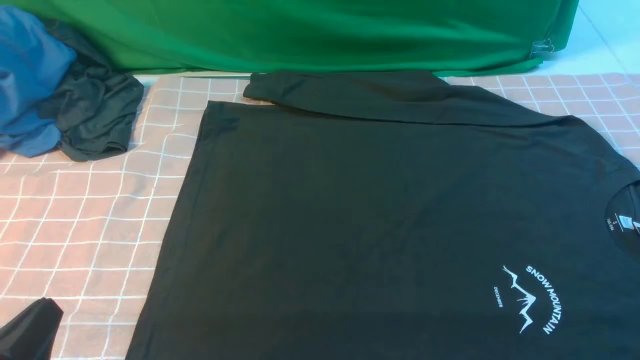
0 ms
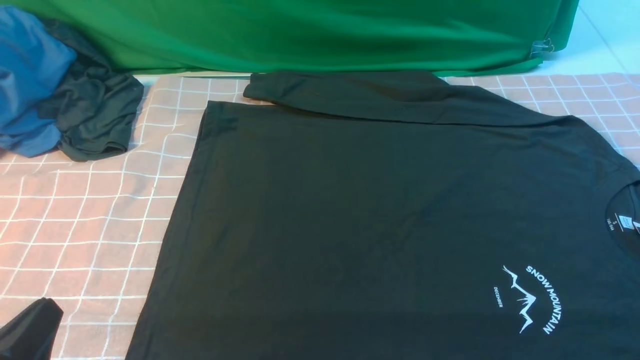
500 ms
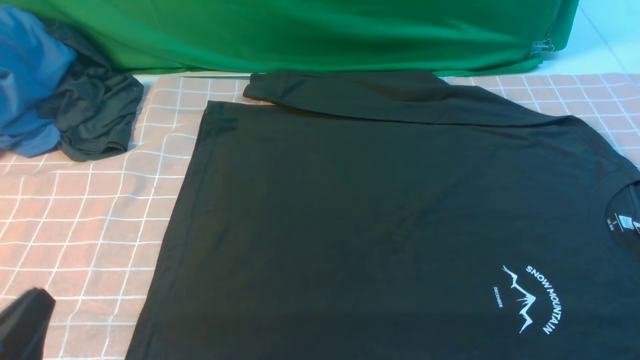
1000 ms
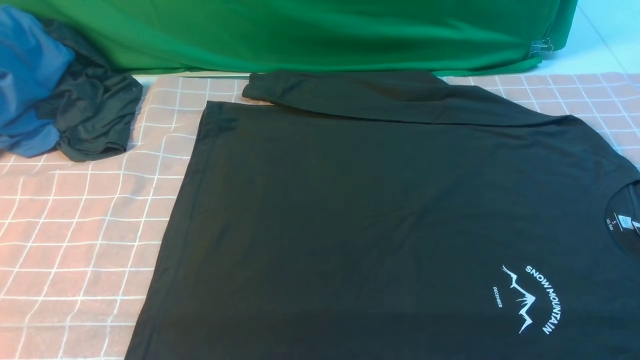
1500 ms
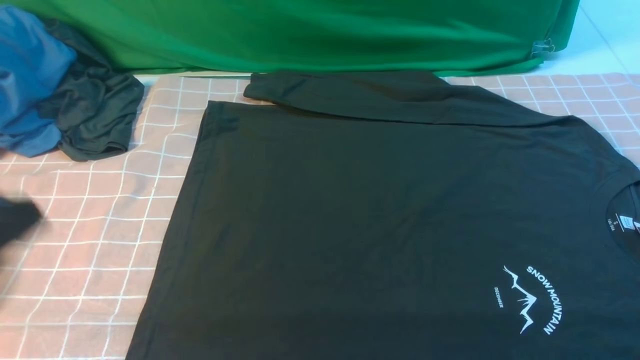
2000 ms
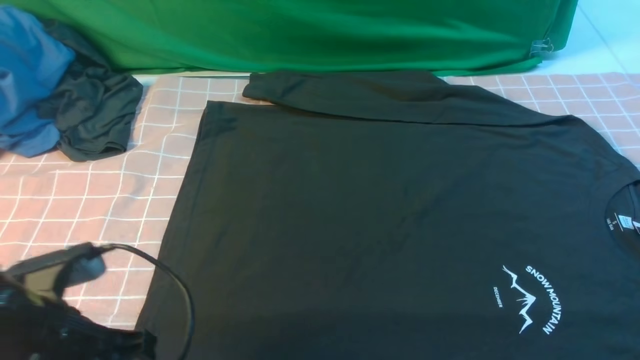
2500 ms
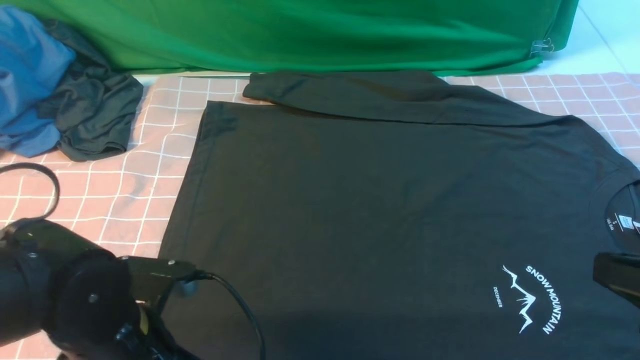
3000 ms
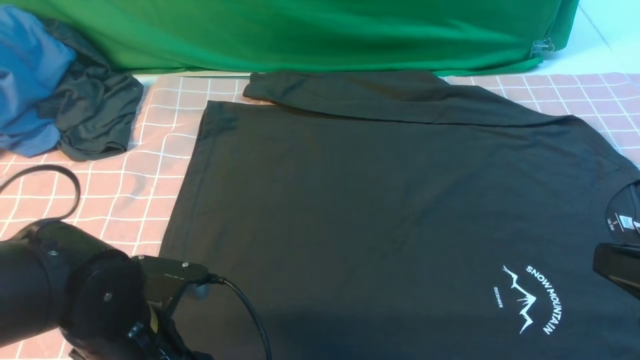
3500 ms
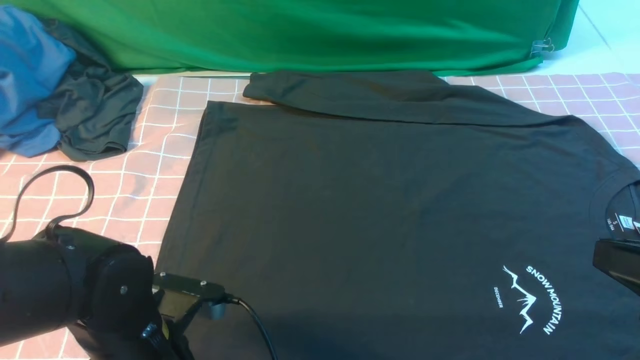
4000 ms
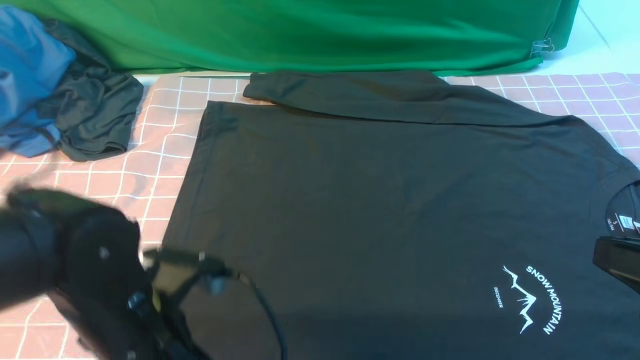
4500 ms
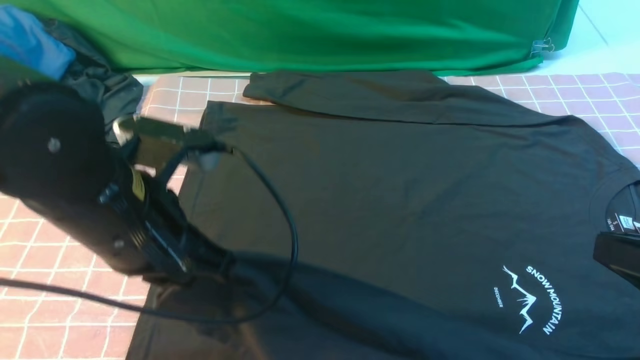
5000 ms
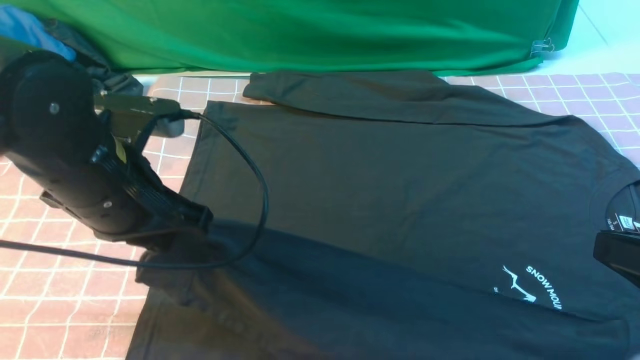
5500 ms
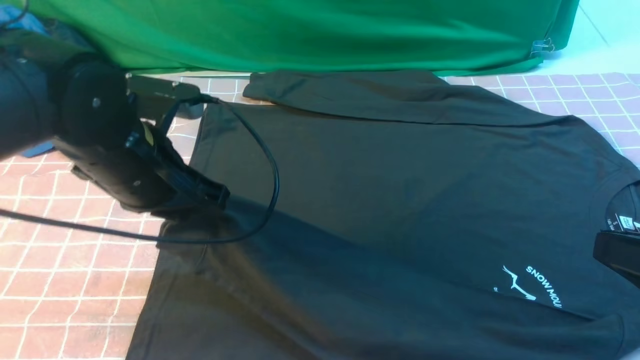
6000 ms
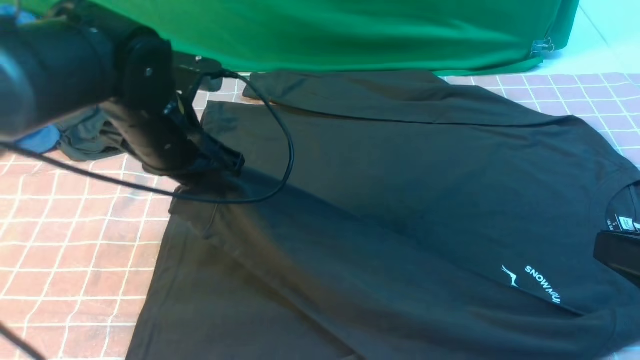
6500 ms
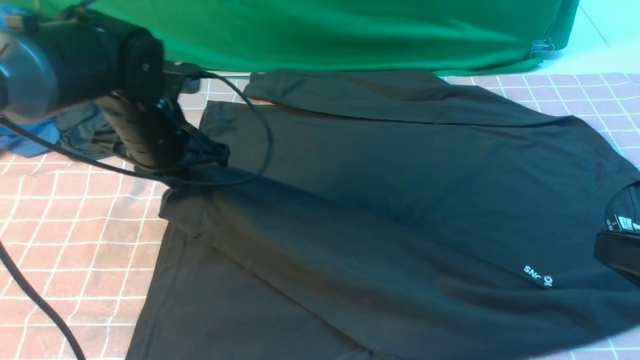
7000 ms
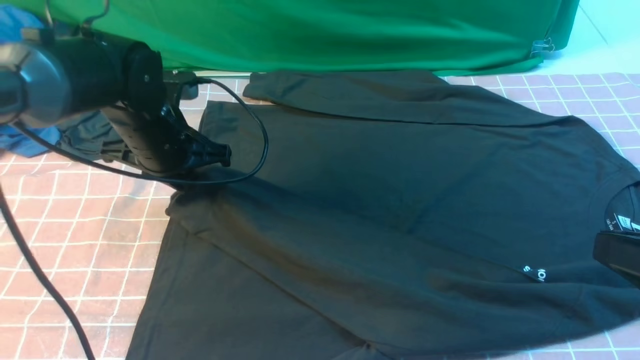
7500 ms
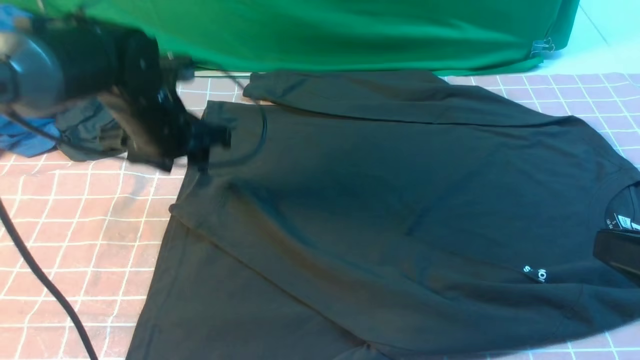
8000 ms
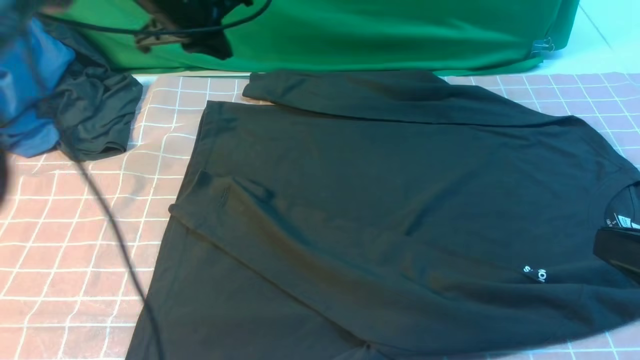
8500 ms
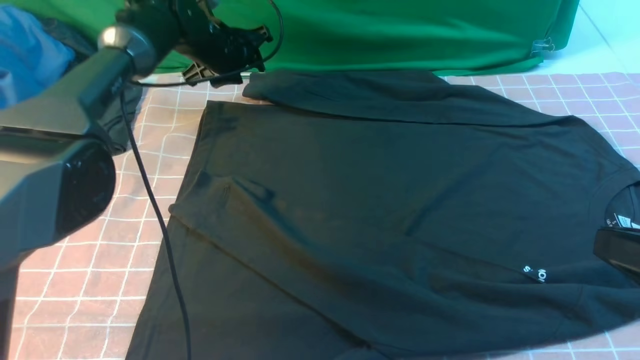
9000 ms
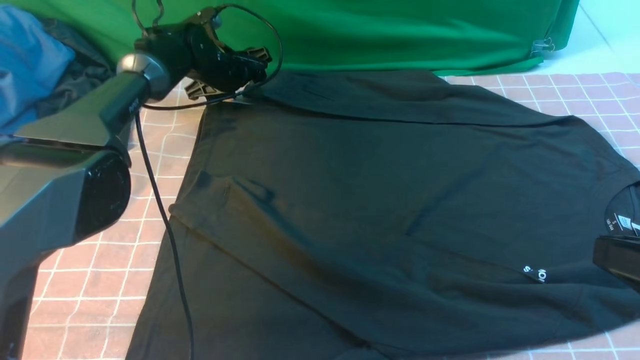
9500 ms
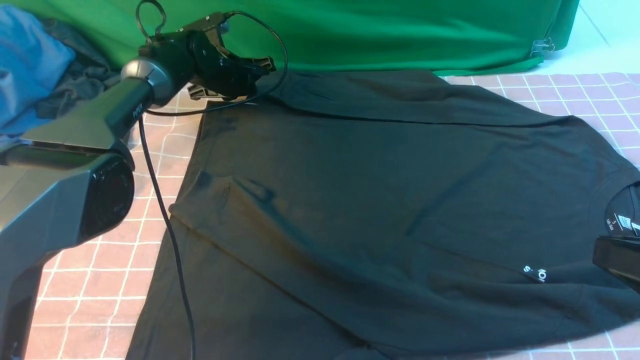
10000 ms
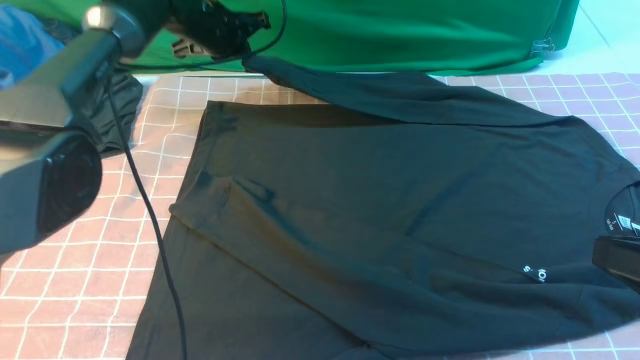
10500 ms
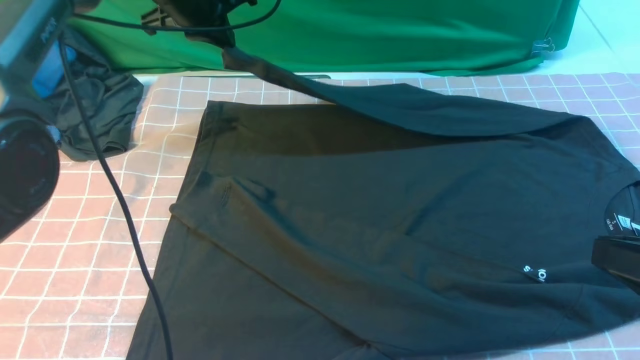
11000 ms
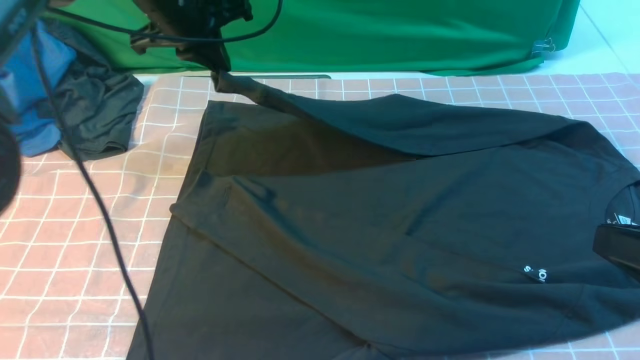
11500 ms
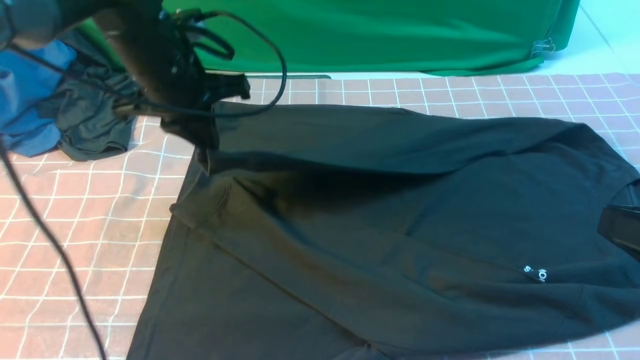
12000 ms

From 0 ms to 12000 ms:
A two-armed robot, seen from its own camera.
Step, from 0 ms to 4500 ms: use the left arm to clamp the cuff closest to it.
Step, from 5000 ms to 7500 ms: use the left arm to drag and place the cuff at the centered position on the left edge of the fabric.
Step, from 8000 ms to 10000 ms: use the left arm to clamp the cuff farthest from it.
From 0 ms to 2000 ms: The left gripper is displaced upward by some 15 cm.
From 2000 ms to 4000 ms: The right gripper heads upward, to the left and forward, covering approximately 10 cm; the left gripper is displaced downward and to the right by about 20 cm, and opens up.
From 4000 ms to 6000 ms: The left gripper heads forward and upward, covering about 15 cm, and closes its fingers.
From 6000 ms to 8000 ms: The left gripper heads forward, covering about 10 cm, and opens.
From 8000 ms to 10000 ms: The left gripper travels forward and downward by roughly 20 cm, and opens and closes again.
From 10000 ms to 12000 ms: The left gripper shifts about 25 cm backward and upward.

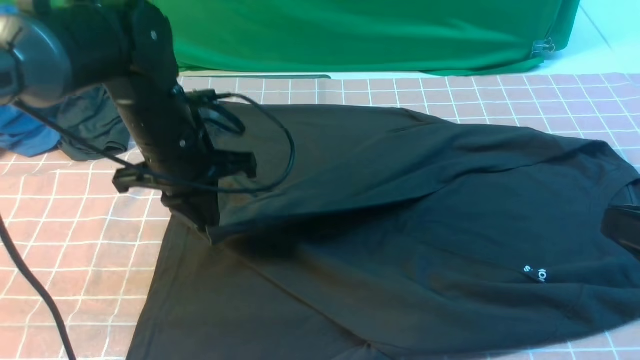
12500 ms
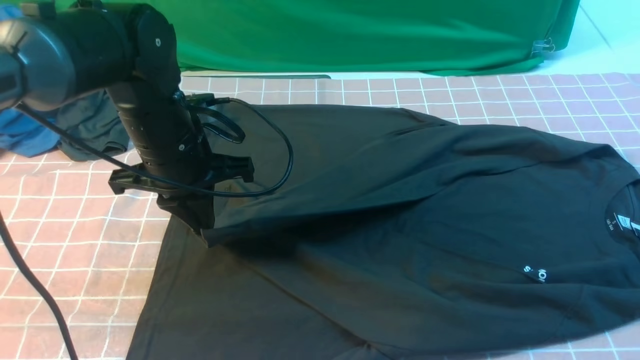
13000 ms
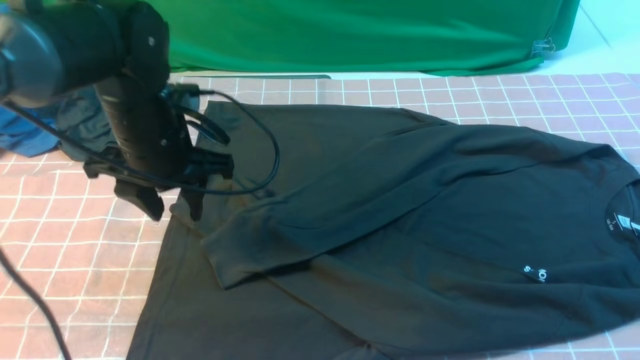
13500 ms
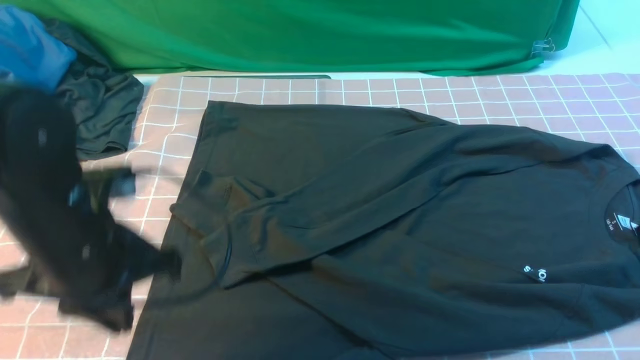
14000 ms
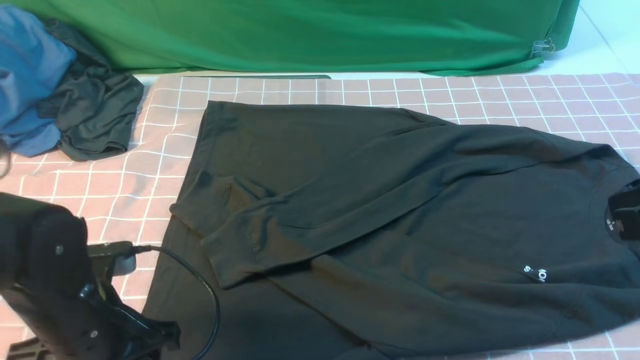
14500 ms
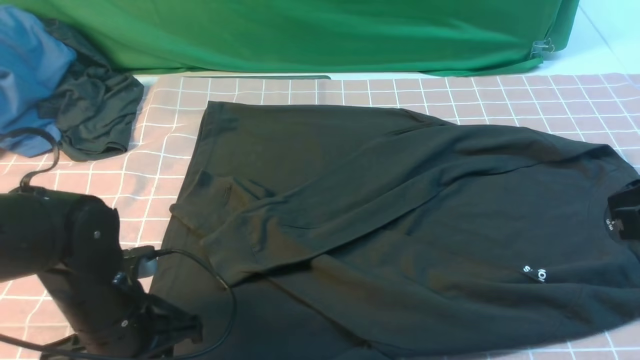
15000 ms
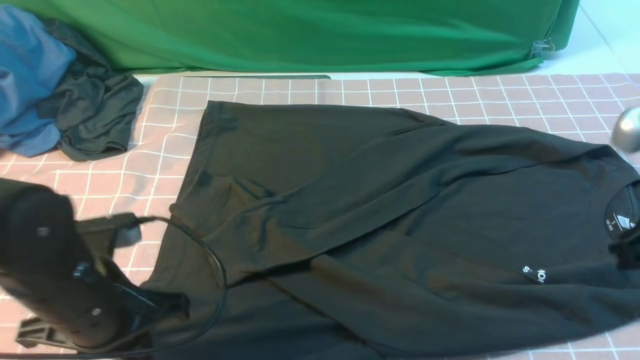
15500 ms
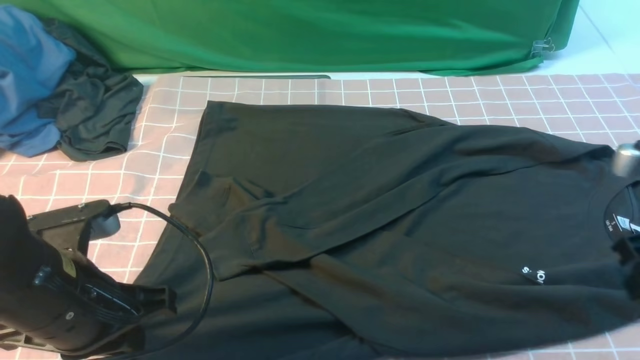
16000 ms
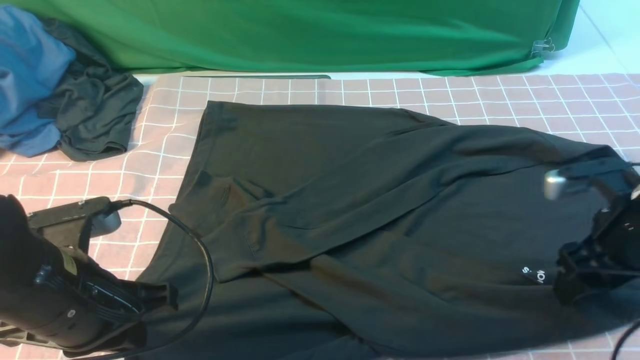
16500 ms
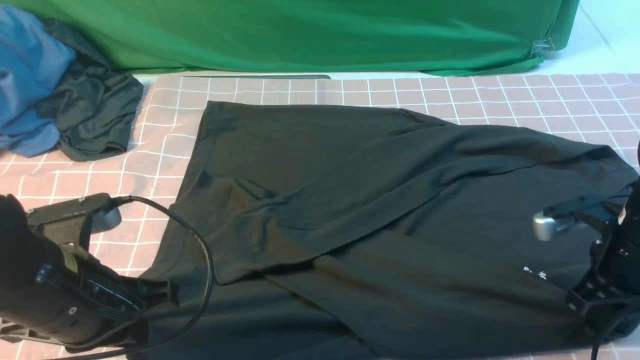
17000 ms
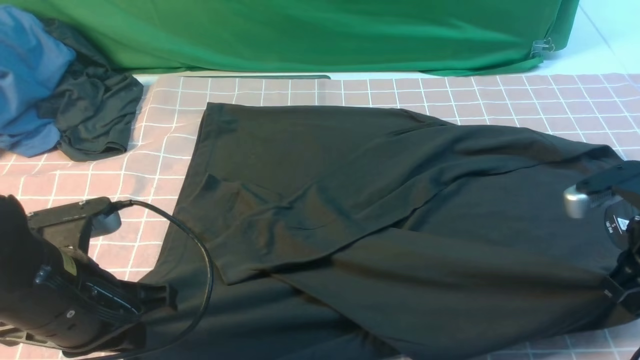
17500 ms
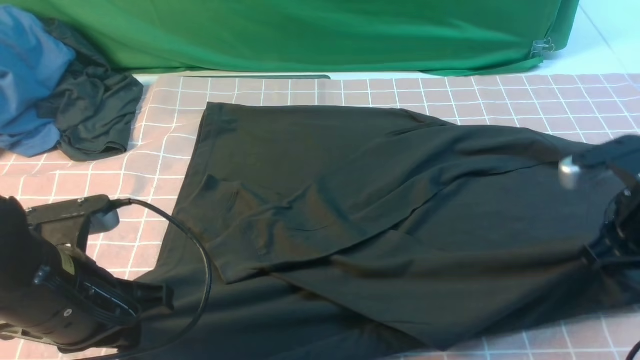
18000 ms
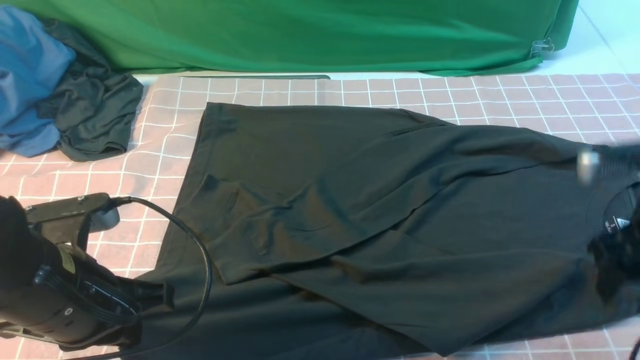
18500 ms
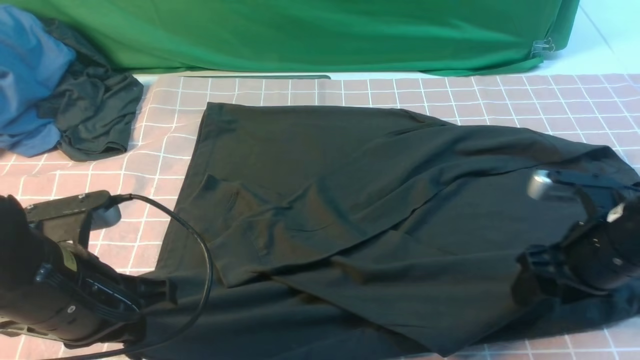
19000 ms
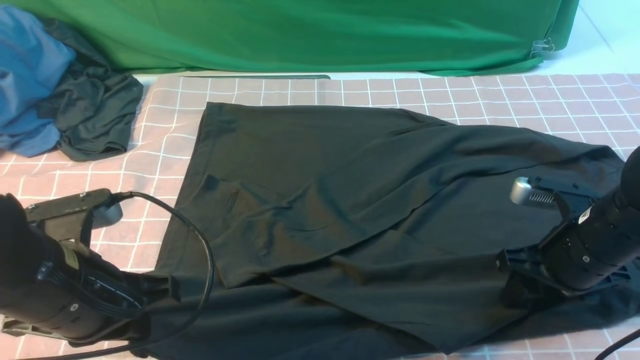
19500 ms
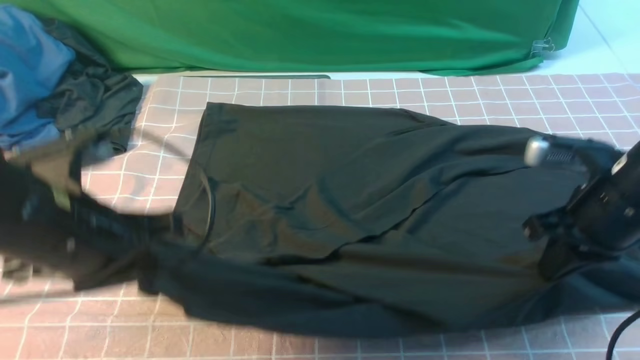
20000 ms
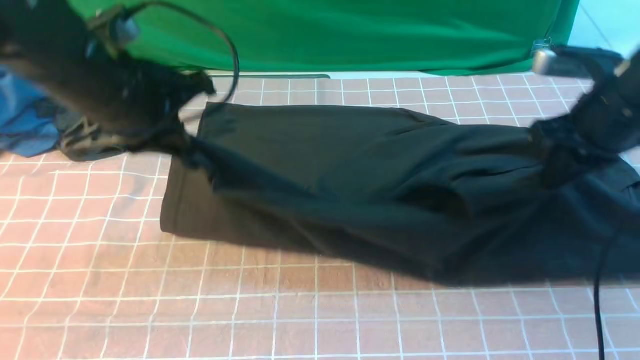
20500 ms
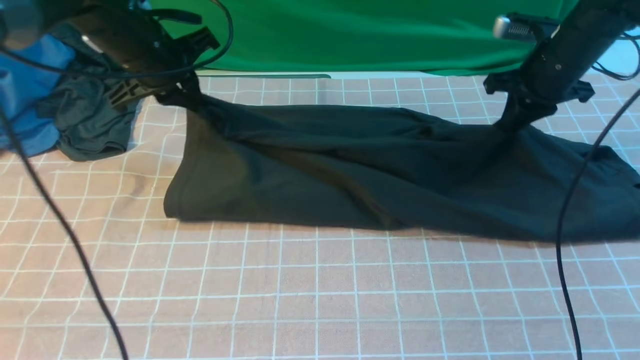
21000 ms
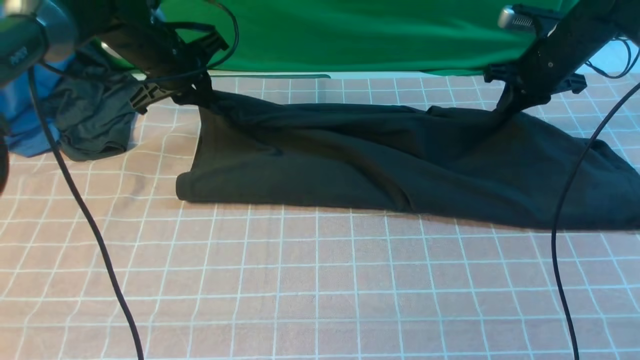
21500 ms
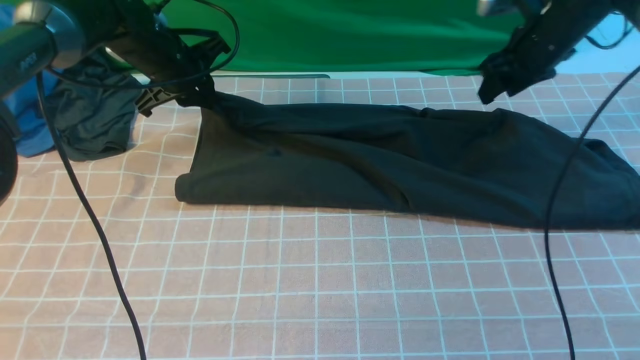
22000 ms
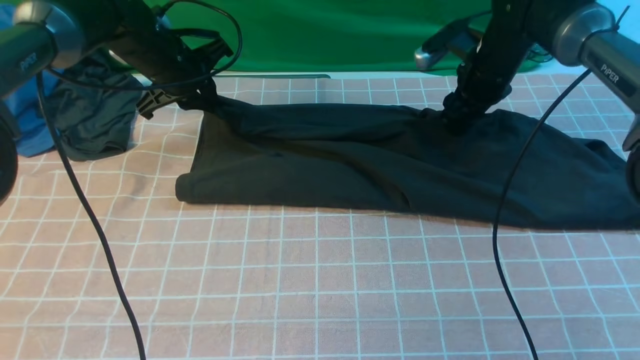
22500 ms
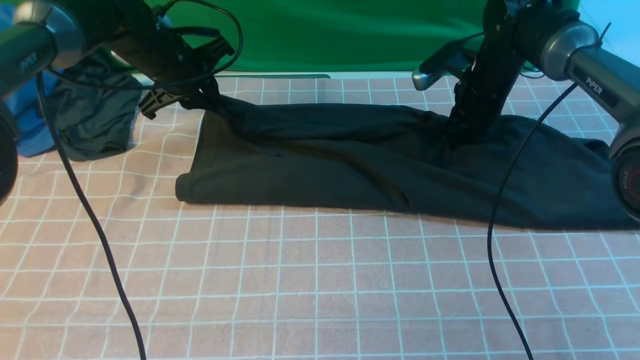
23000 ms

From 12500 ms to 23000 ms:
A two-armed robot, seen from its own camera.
Step, from 13500 ms to 19500 ms: use both arms simultaneously to clamp the lower edge of the clothing fabric.
From 12500 ms to 14500 ms: The left gripper moves backward and downward, some 15 cm, and opens. The right gripper travels forward by roughly 5 cm.
From 14500 ms to 16500 ms: The left gripper moves upward, some 5 cm, and closes. Meanwhile the right gripper shifts approximately 20 cm downward and forward, and opens its fingers.
From 16500 ms to 19000 ms: The right gripper closes and opens again.
From 19000 ms to 21000 ms: Both grippers move forward, approximately 25 cm. The right gripper closes its fingers.
From 21000 ms to 23000 ms: The right gripper moves to the left, approximately 5 cm, and opens, then closes again; the left gripper changes place by some 5 cm.
